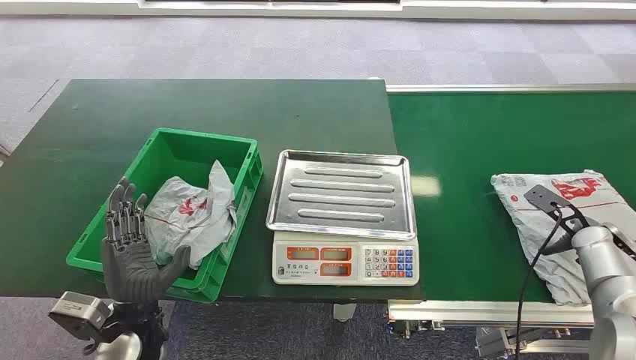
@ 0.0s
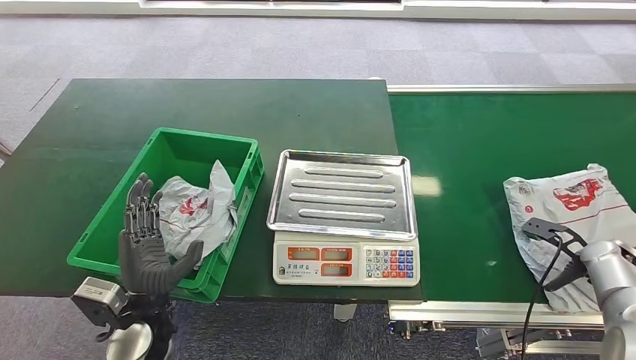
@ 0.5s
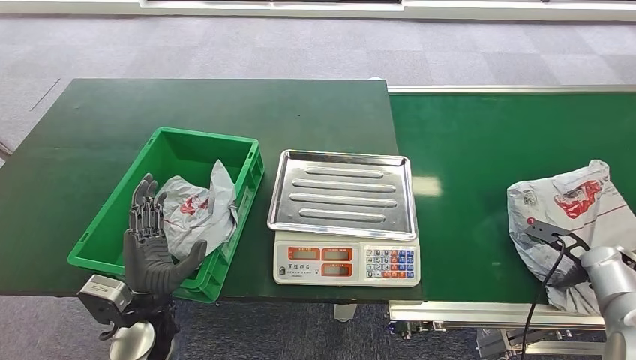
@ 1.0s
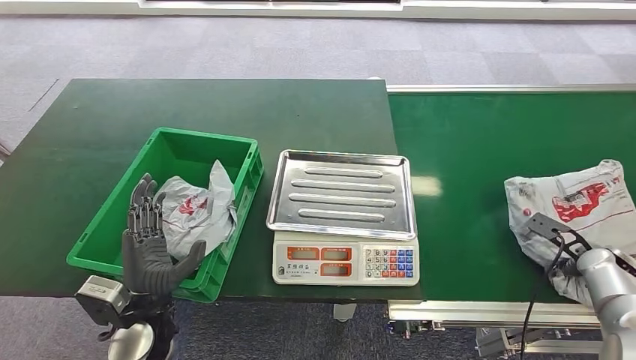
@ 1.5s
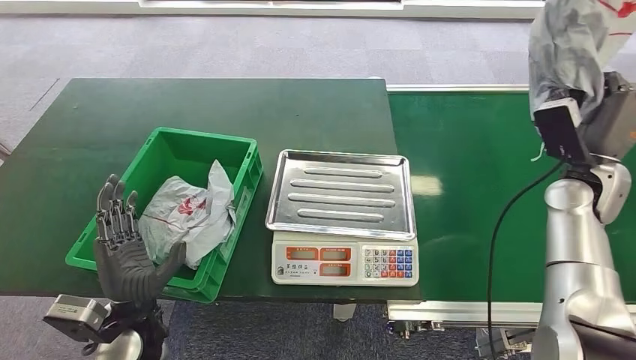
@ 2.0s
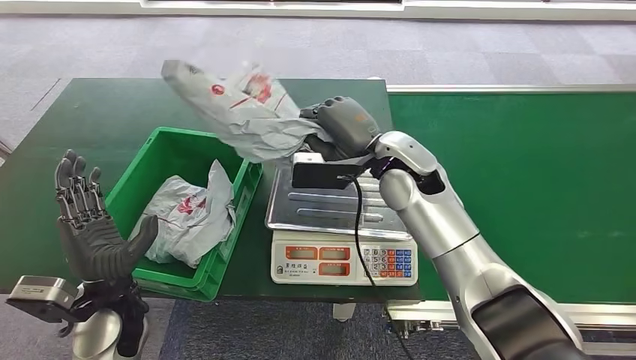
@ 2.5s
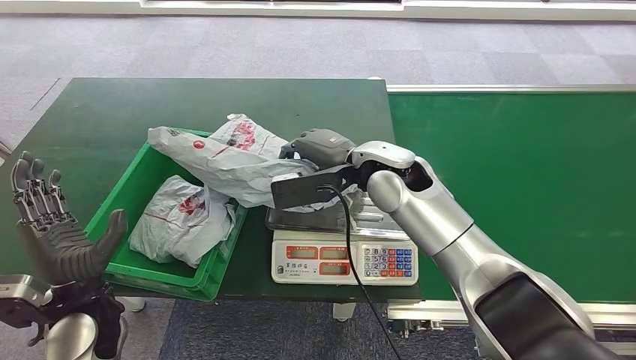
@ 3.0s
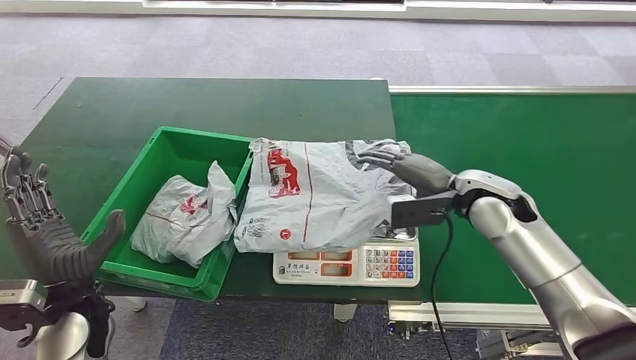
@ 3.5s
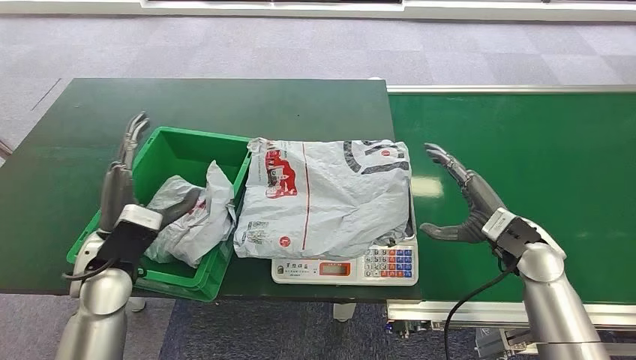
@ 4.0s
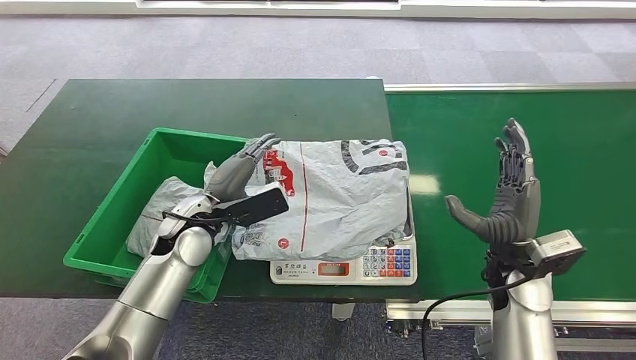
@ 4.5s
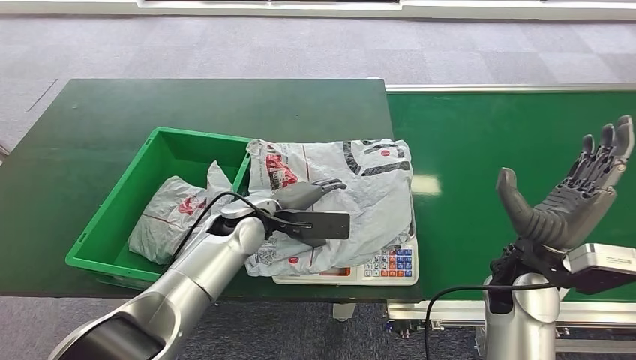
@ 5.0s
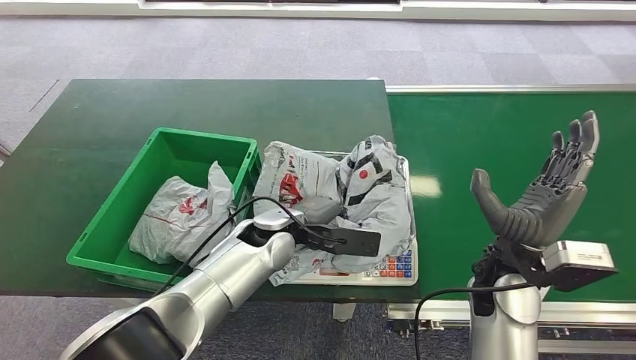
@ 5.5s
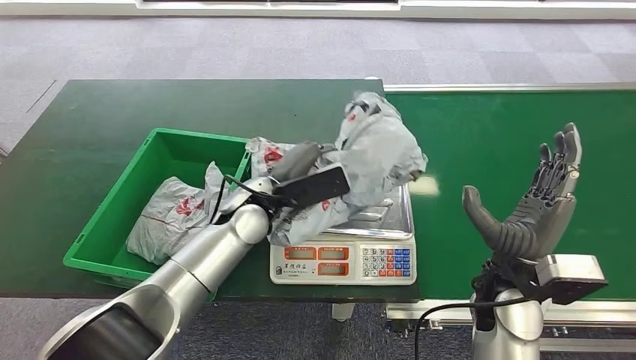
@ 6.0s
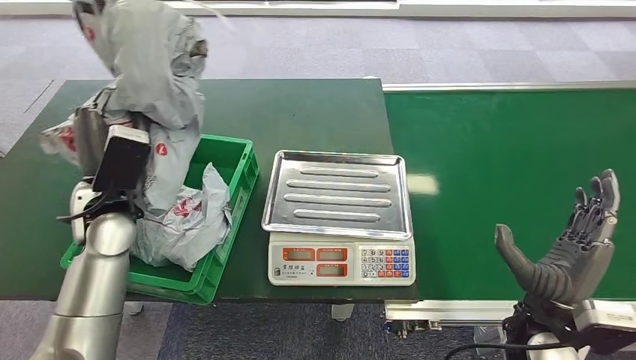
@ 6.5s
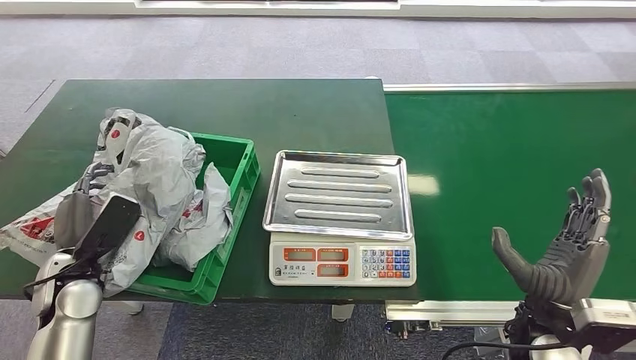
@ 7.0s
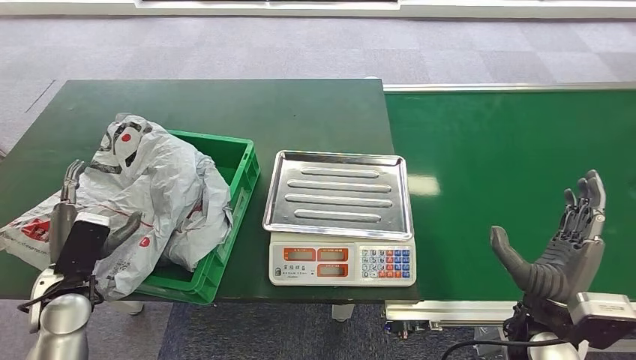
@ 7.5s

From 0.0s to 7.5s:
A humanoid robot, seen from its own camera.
Step, from 0.0s to 2.0s: Pick up the package from the conveyor belt.
Step, from 2.5s to 4.0s: Place the package onto the inbound machine.
Step, from 4.5s to 6.5s: Pick up the package from the inbound machine.
Step, from 7.0s to 7.5s: Place the package into the parcel locker.

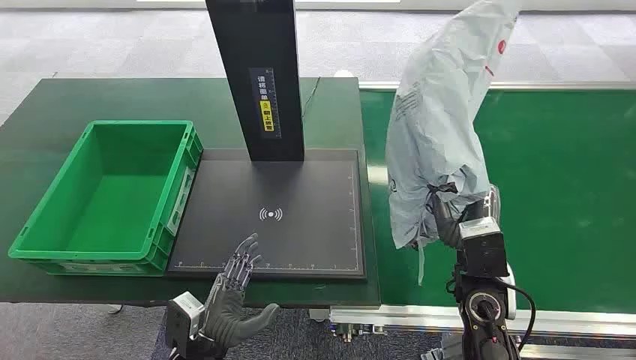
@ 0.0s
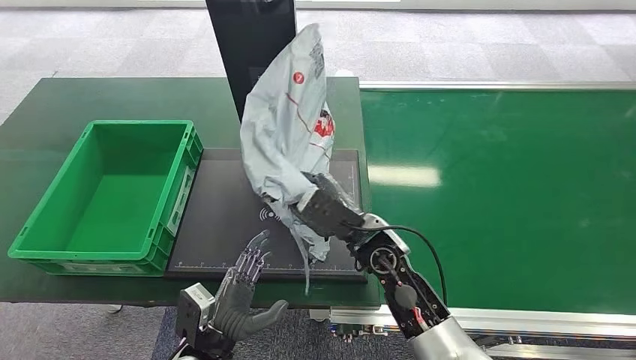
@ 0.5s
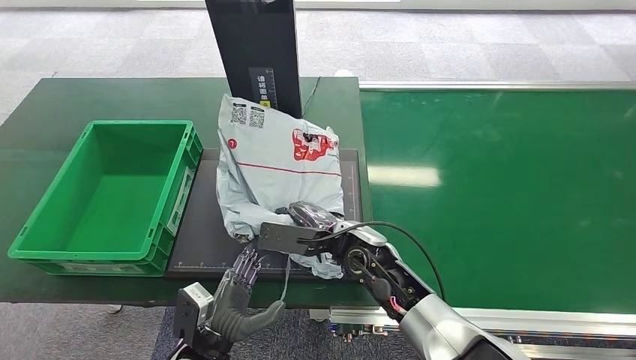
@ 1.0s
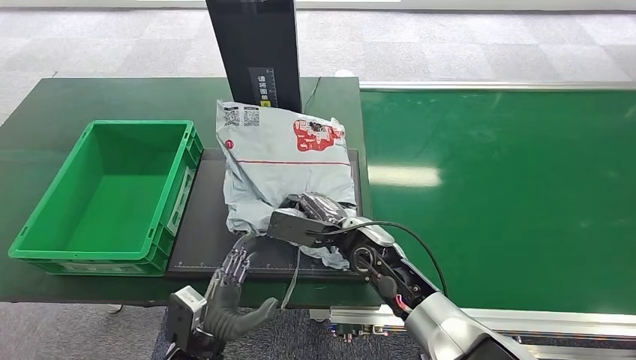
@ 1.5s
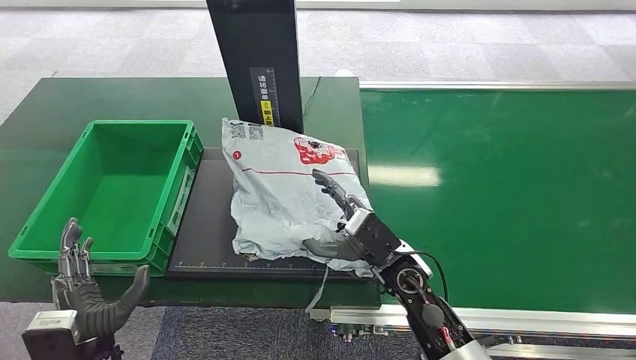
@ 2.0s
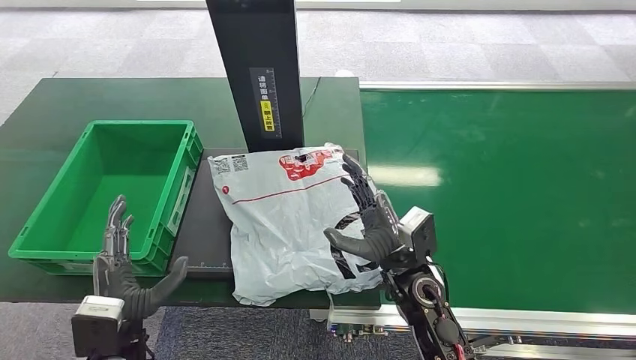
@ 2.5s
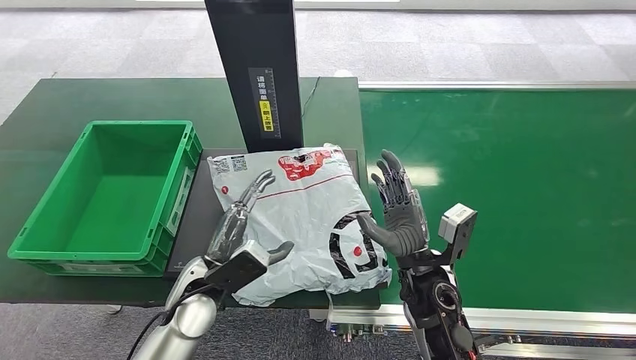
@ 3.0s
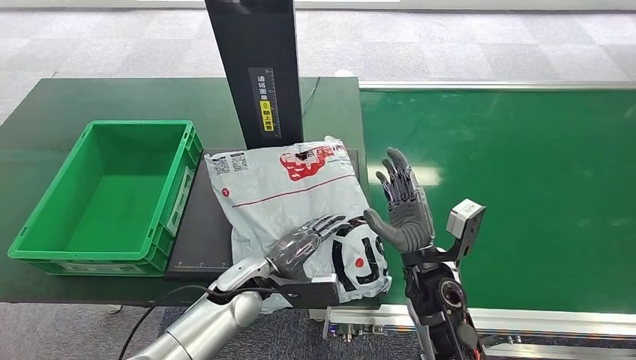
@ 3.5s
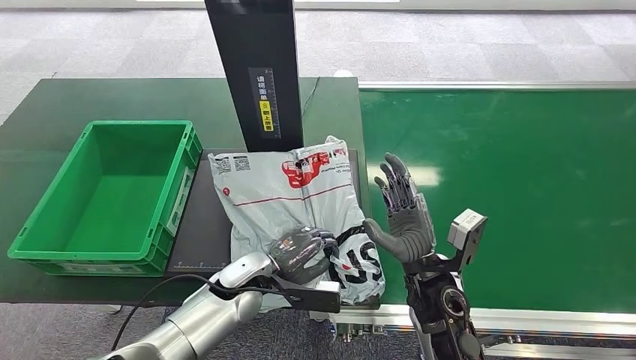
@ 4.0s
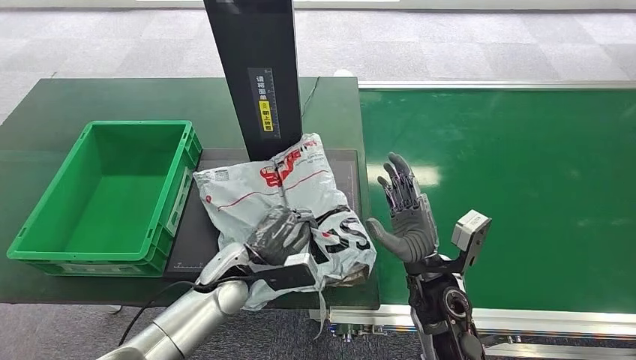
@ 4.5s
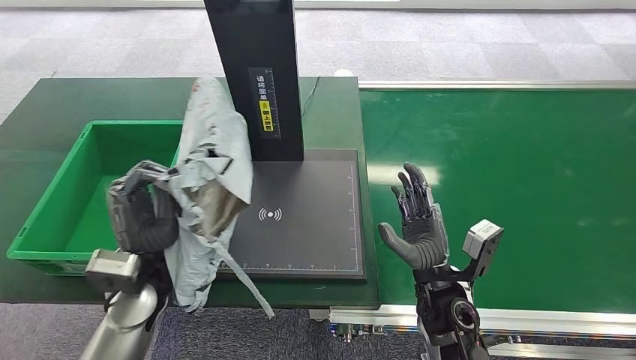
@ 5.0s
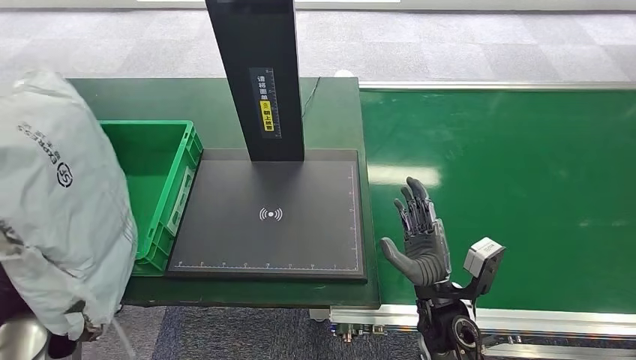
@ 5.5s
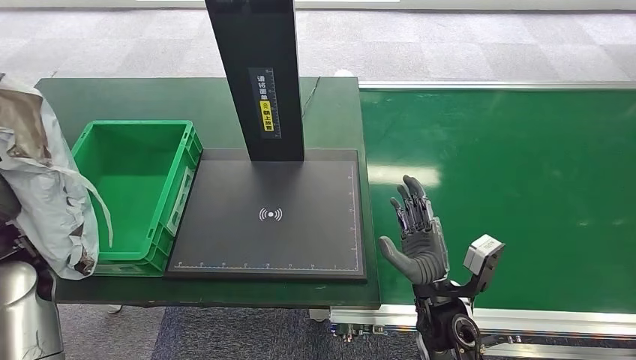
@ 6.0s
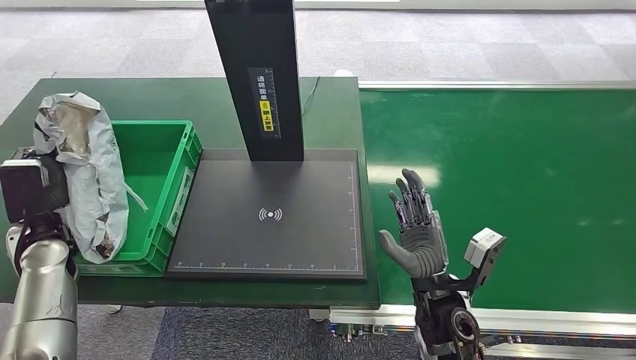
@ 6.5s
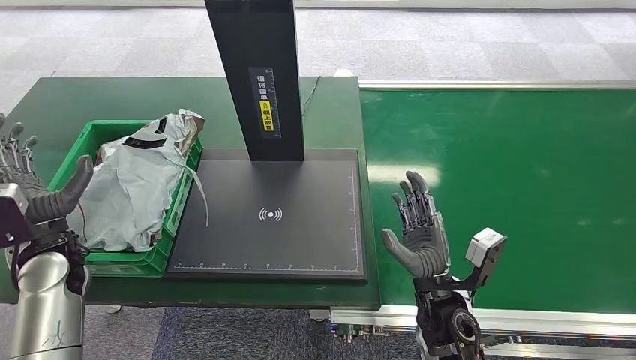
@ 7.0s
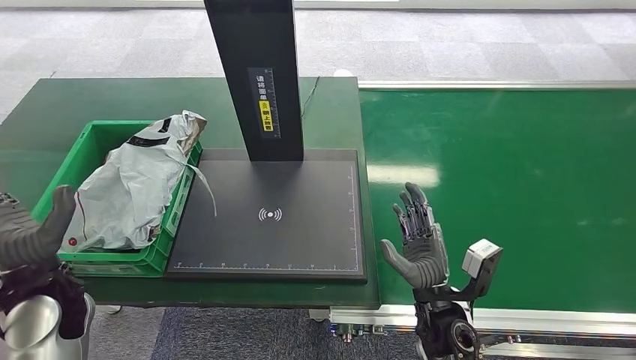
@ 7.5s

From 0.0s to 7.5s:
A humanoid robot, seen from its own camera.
From 2.0s to 4.0s: The left hand heads to the right and forward, covering approximately 25 cm.
From 5.5s to 7.5s: The left hand moves roughly 10 cm forward and comes back.

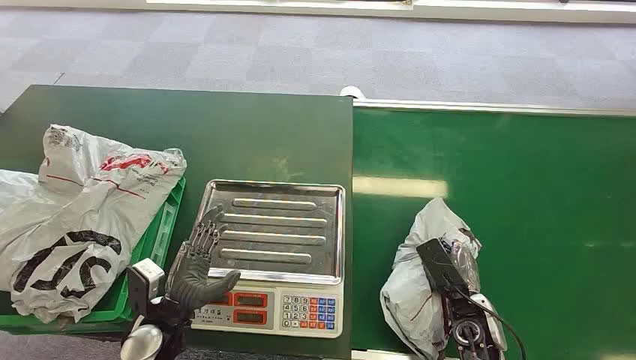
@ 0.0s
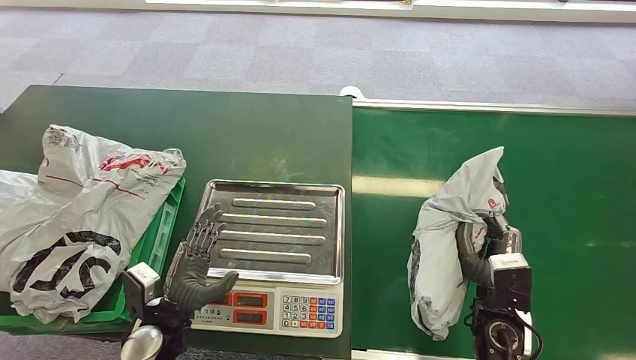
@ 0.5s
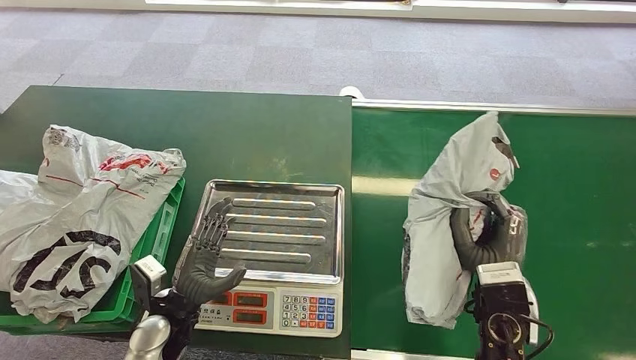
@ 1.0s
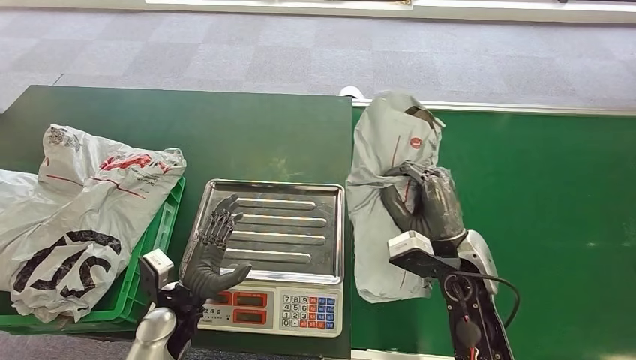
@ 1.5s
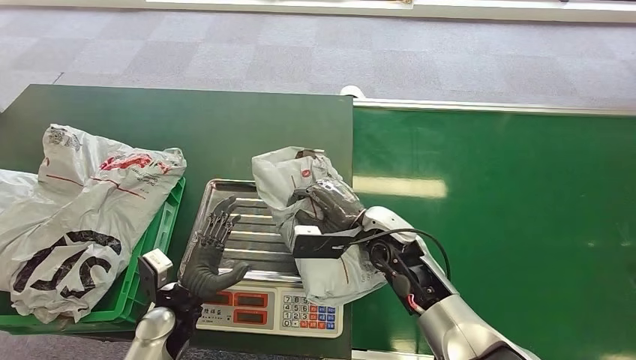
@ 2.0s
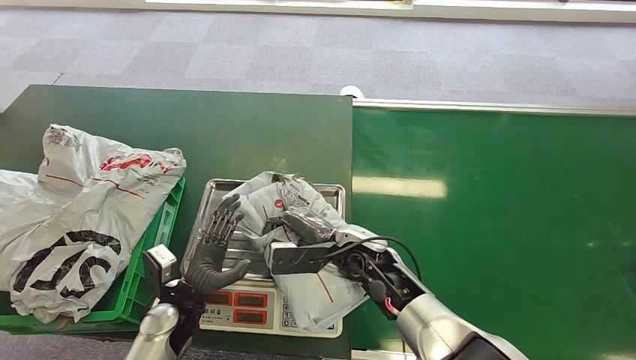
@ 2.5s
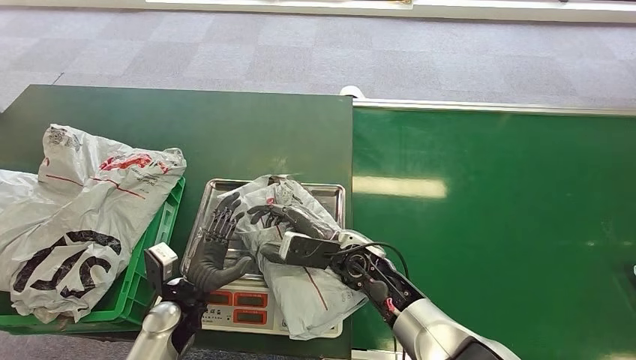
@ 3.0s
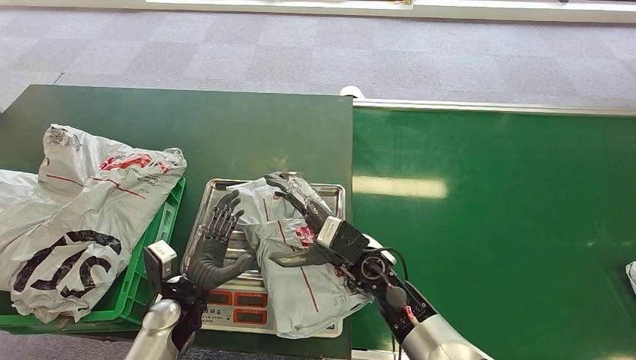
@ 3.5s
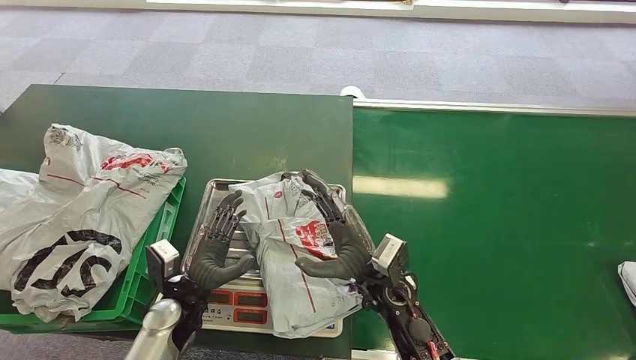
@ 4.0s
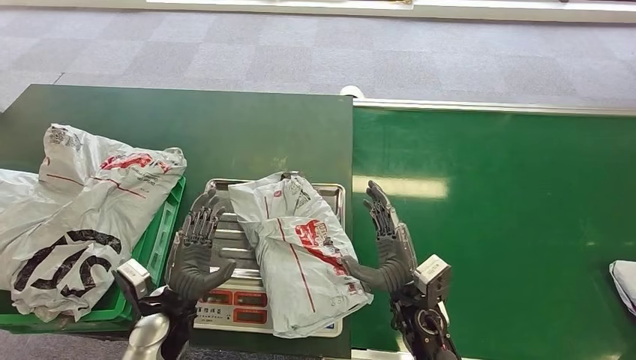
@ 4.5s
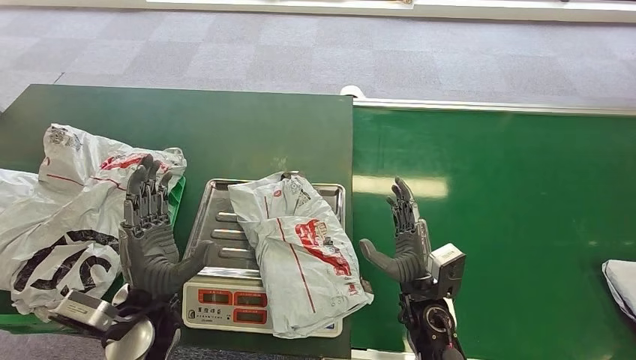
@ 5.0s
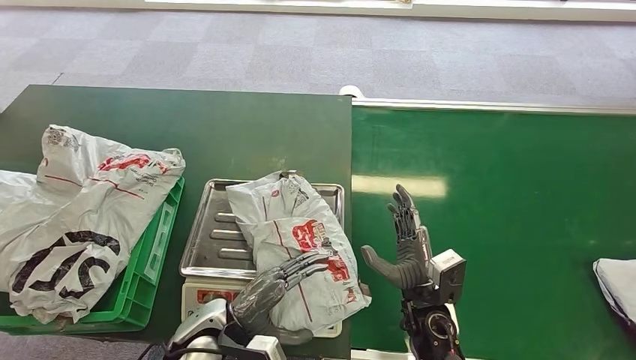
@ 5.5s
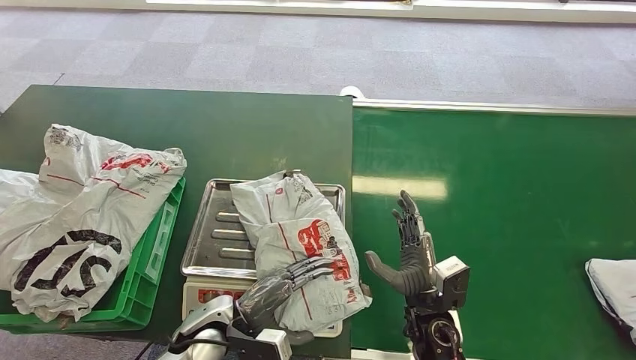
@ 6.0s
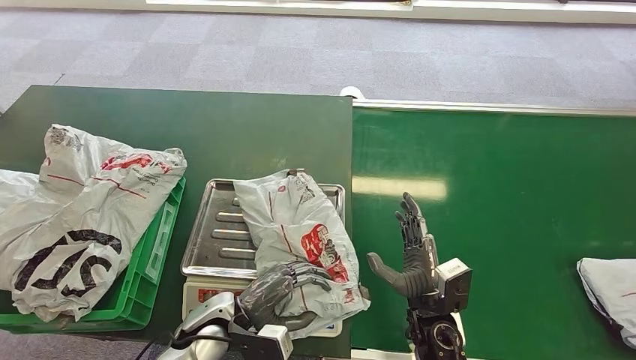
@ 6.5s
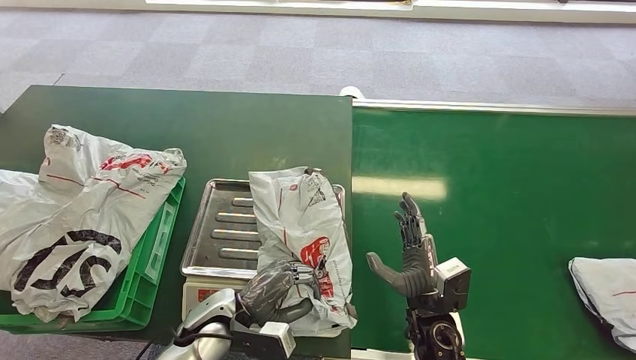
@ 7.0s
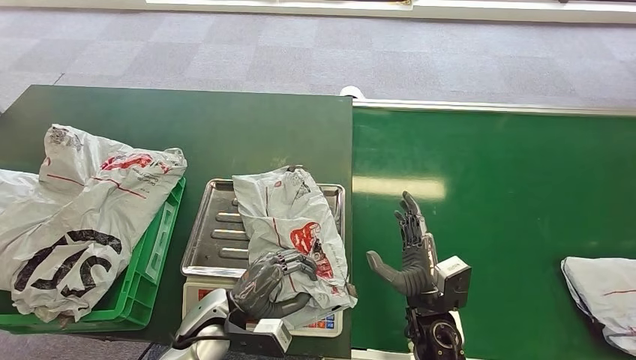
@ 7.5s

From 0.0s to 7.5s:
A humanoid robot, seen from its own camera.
Step, from 0.0s to 1.0s: Pick up the package from the conveyor belt.
Step, from 1.5s to 3.0s: Place the package onto the inbound machine.
From 2.0s to 4.0s: The right hand moves backward, about 10 cm.
From 4.0s to 5.5s: The hands both shift to the right by roughly 5 cm. The left hand goes upward and returns, roughly 10 cm each way.
From 5.5s to 7.5s: The hands stay close to where they were, moving slightly.
